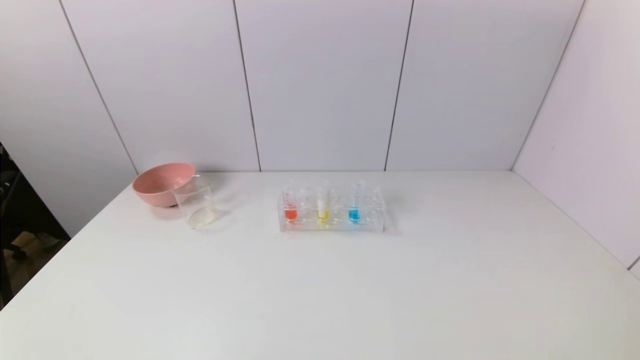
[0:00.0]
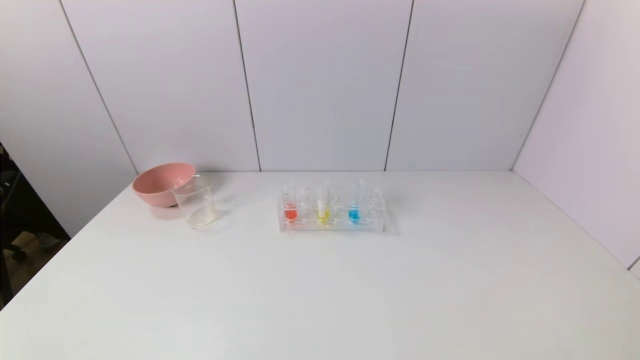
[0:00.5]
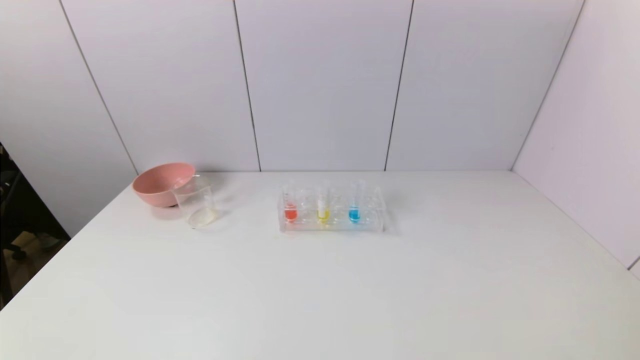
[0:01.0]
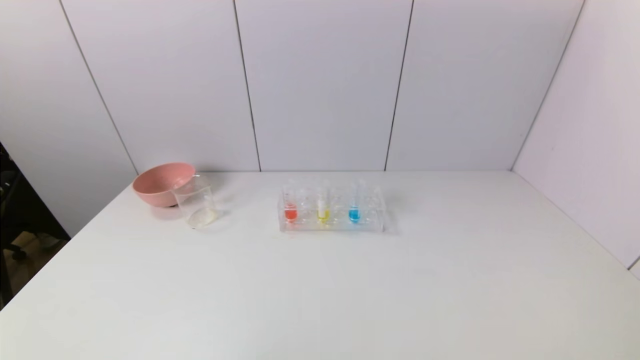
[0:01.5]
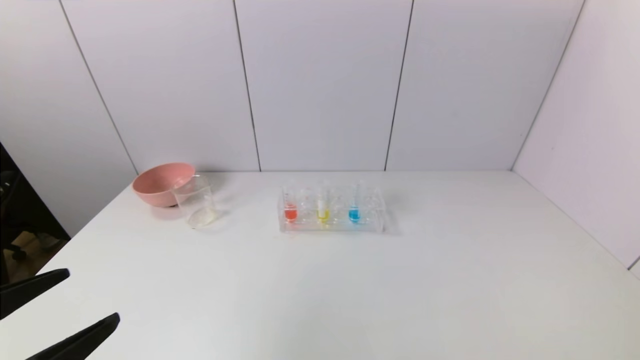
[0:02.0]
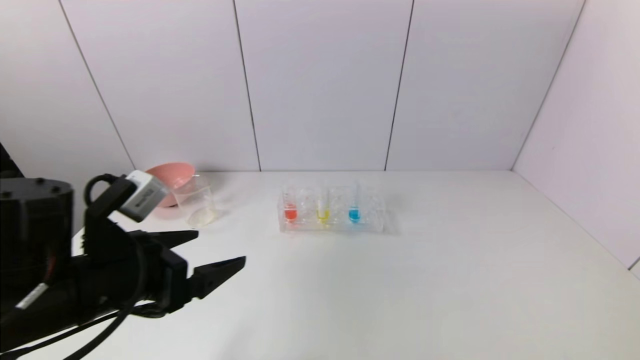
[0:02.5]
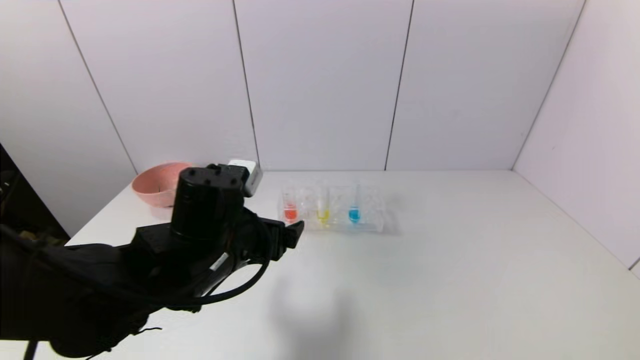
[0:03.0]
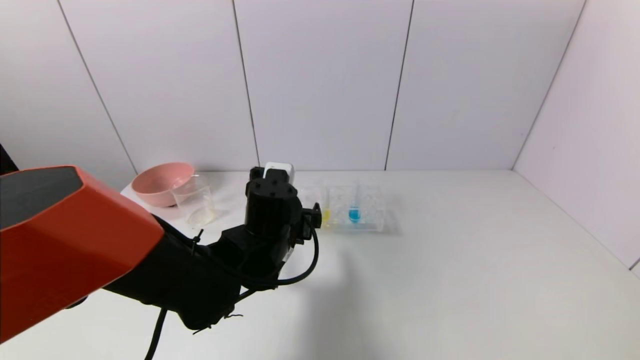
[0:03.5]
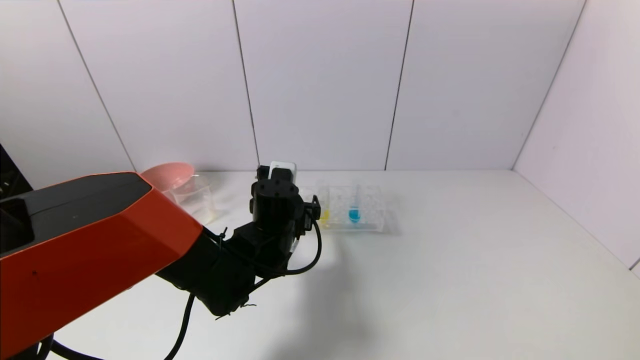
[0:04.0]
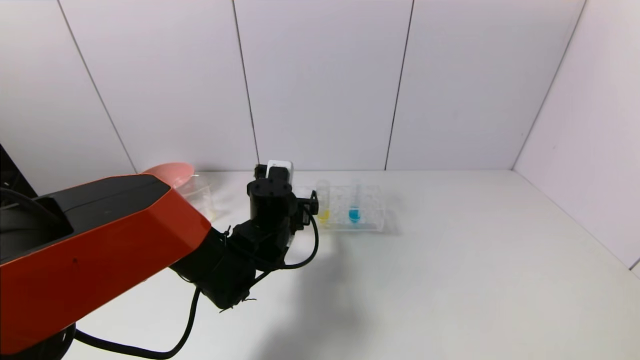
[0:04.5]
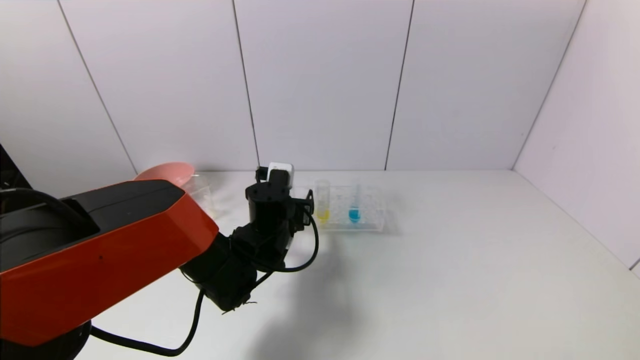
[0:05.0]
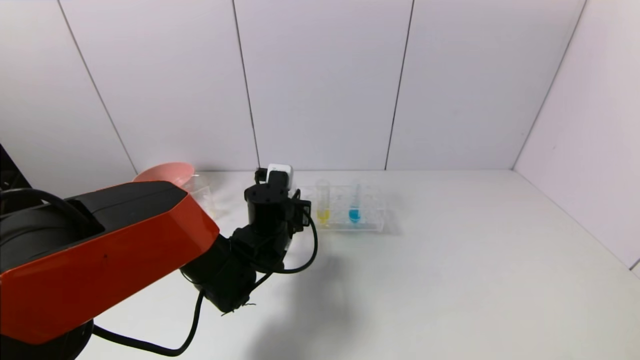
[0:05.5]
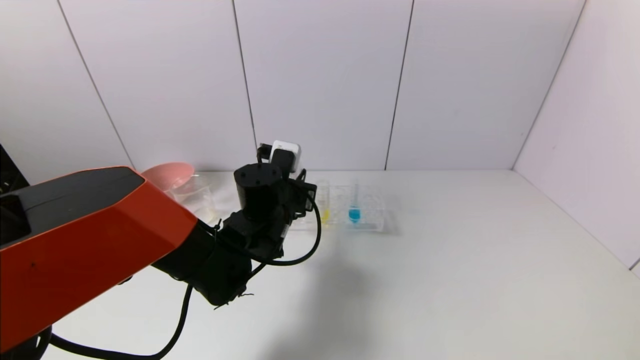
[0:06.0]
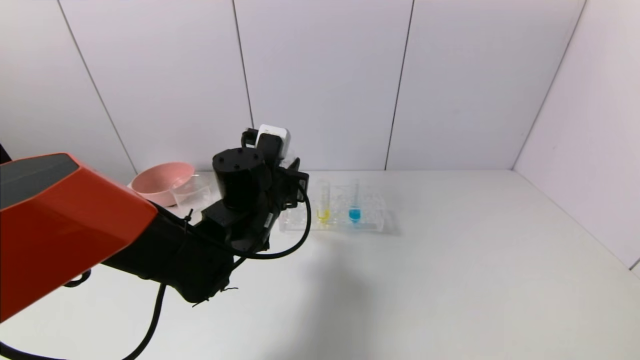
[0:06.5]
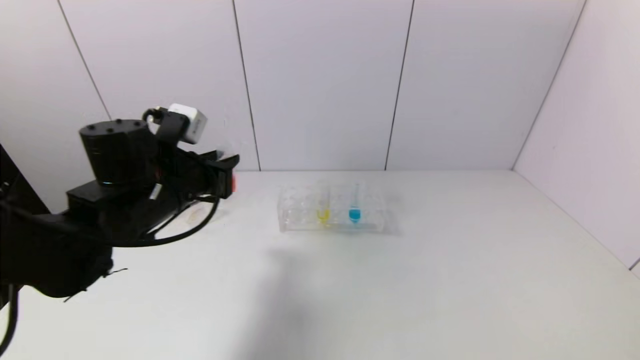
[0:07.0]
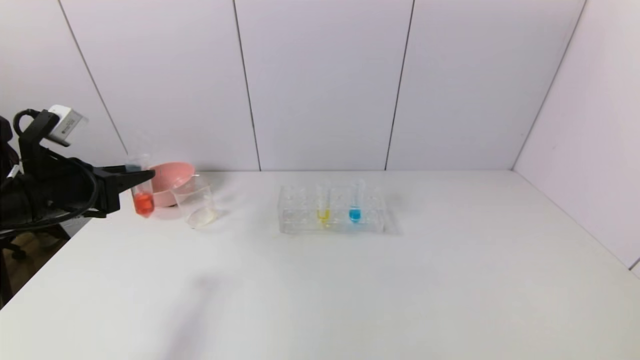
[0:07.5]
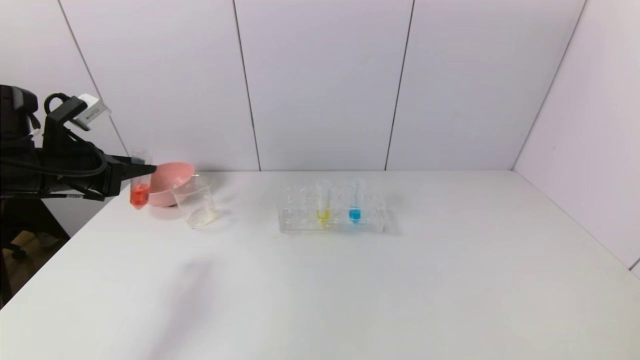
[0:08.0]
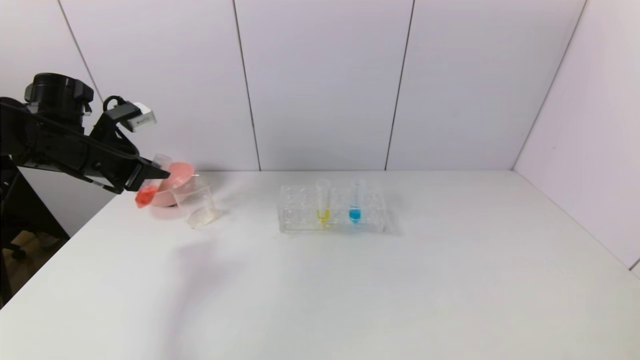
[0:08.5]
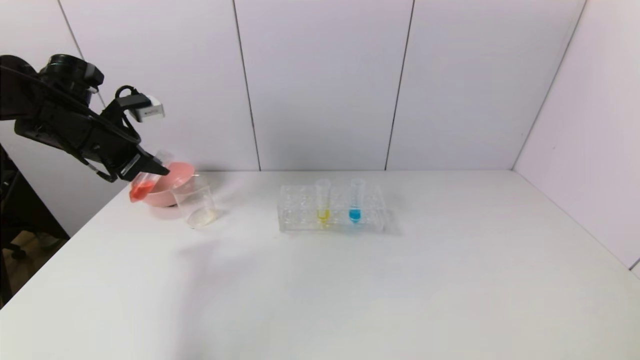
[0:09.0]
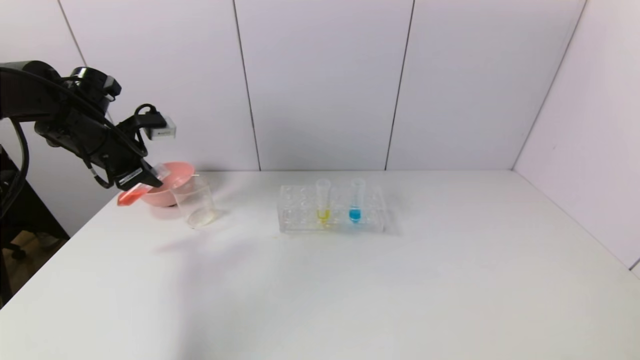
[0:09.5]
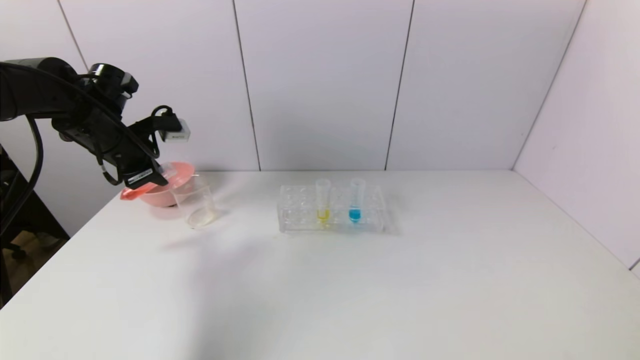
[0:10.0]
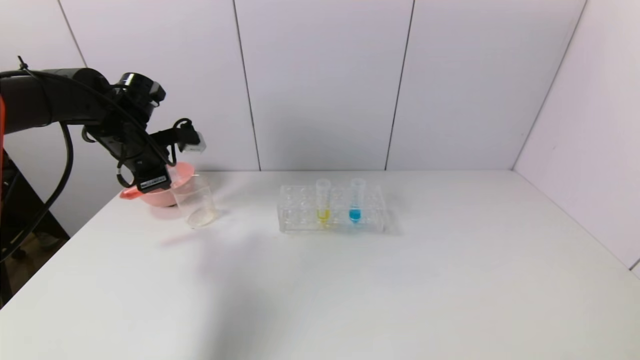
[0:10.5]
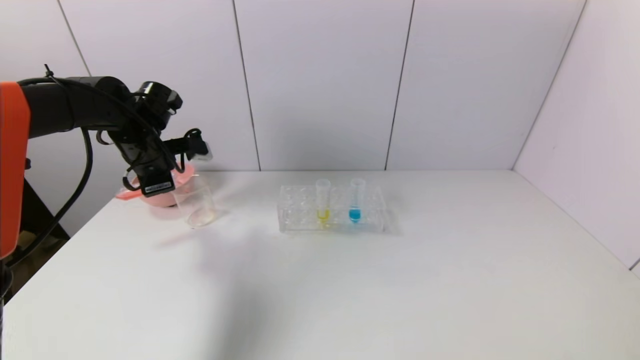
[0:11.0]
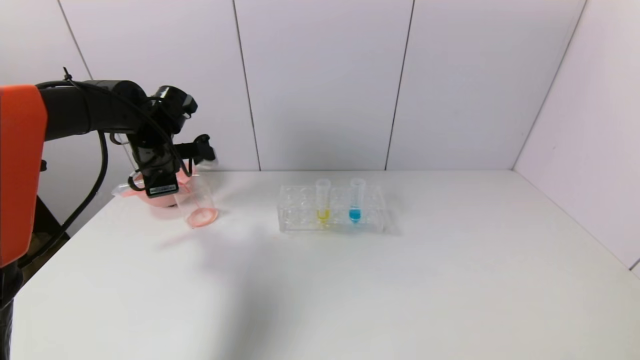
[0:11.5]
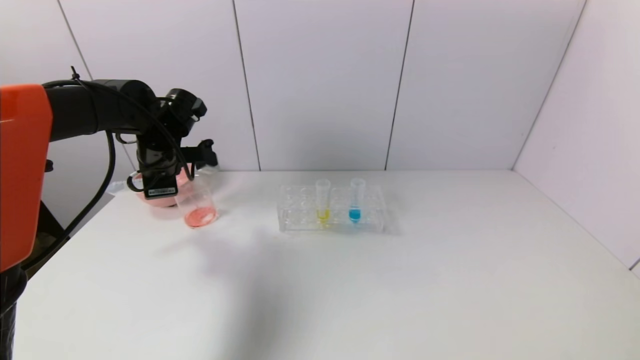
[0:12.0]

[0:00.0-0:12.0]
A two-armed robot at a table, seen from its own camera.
Task of the whole recording: pick up the test tube with yellow pigment and the test tube with red pigment by grippers and pour them into the beaker.
Step, 0:00.0 to 0:05.5: Grasp the red reagent with the left gripper.
0:00.0 to 0:02.0: The left gripper moves upward and forward, some 15 cm.
0:02.0 to 0:04.0: The left gripper travels forward and to the right by approximately 35 cm.
0:04.0 to 0:06.0: The left gripper closes.
0:06.0 to 0:08.0: The left gripper goes about 30 cm to the left.
0:08.0 to 0:10.0: The left gripper goes about 10 cm forward.
0:10.0 to 0:12.0: The left gripper moves to the right, roughly 5 cm.

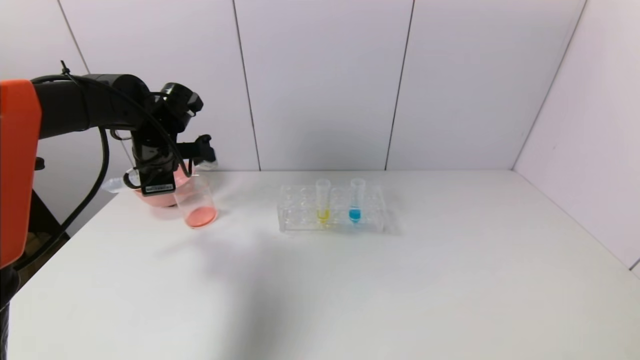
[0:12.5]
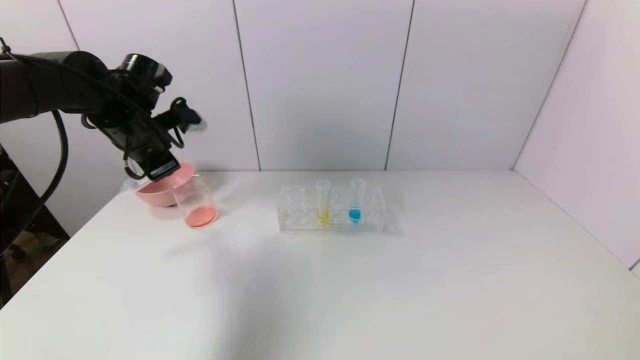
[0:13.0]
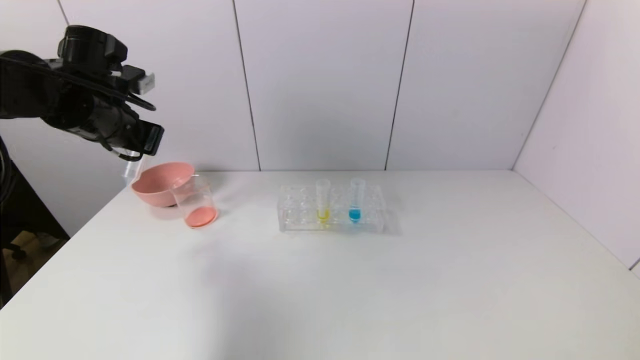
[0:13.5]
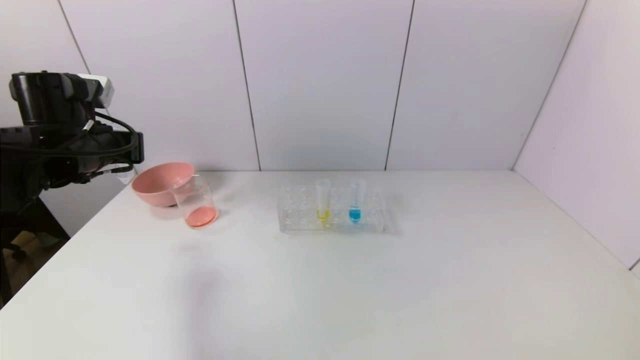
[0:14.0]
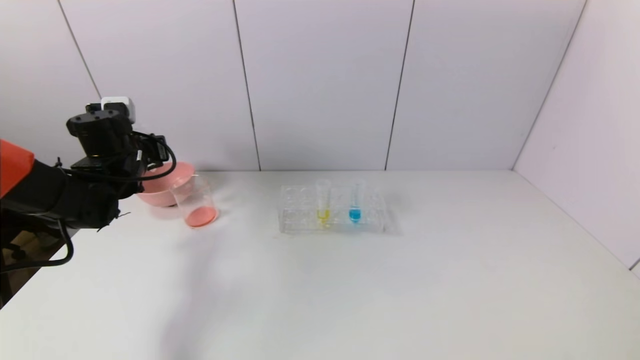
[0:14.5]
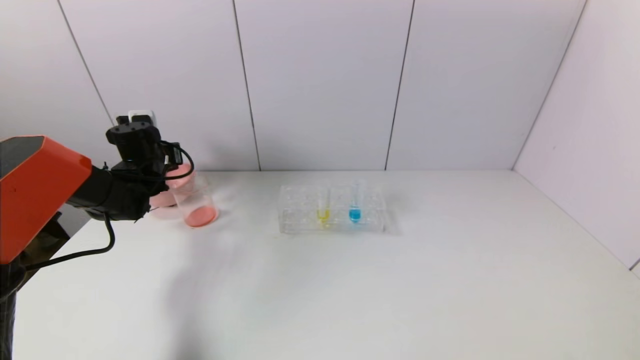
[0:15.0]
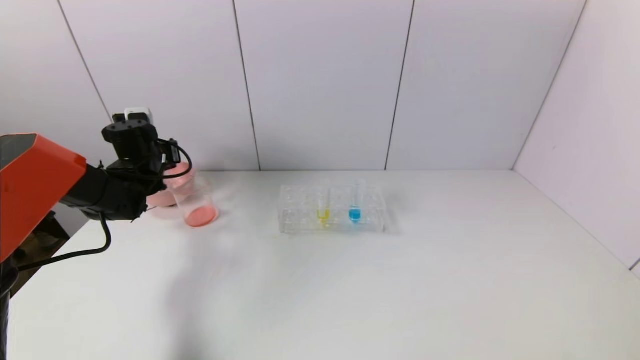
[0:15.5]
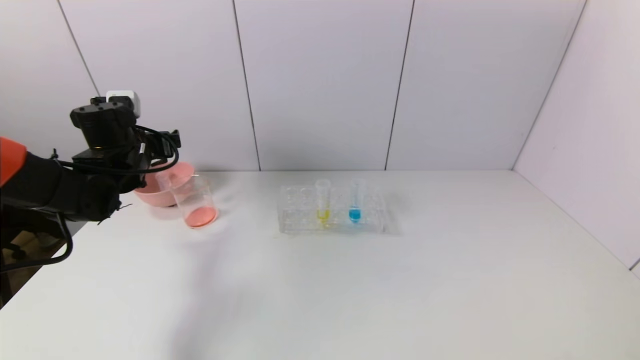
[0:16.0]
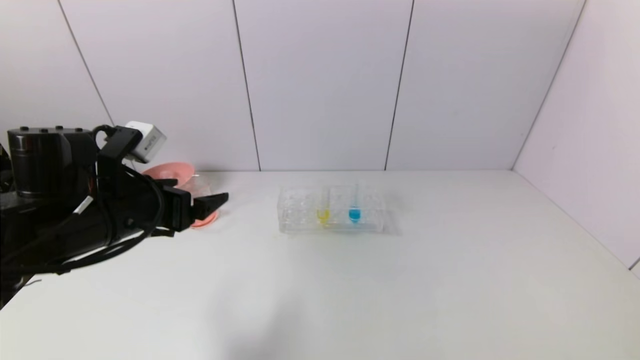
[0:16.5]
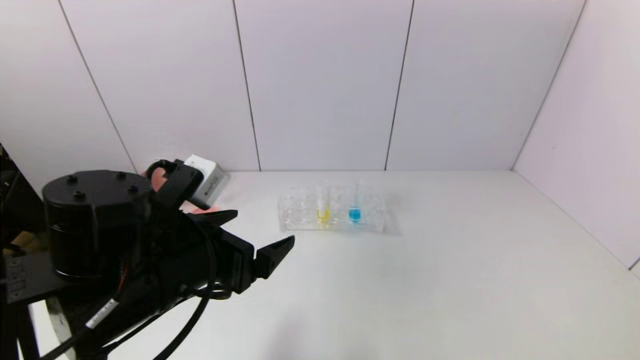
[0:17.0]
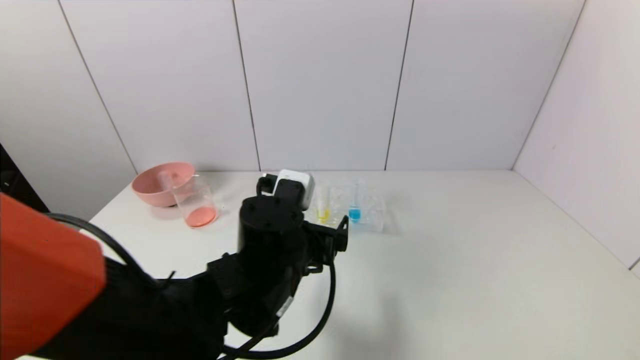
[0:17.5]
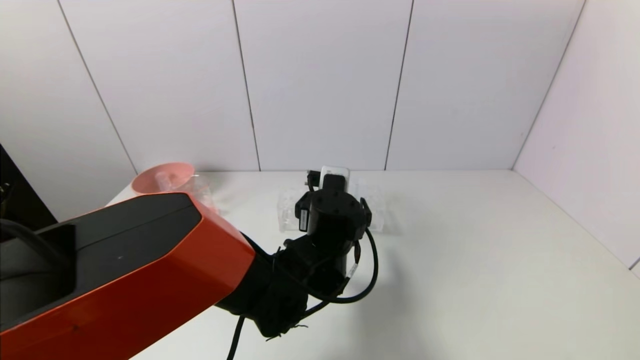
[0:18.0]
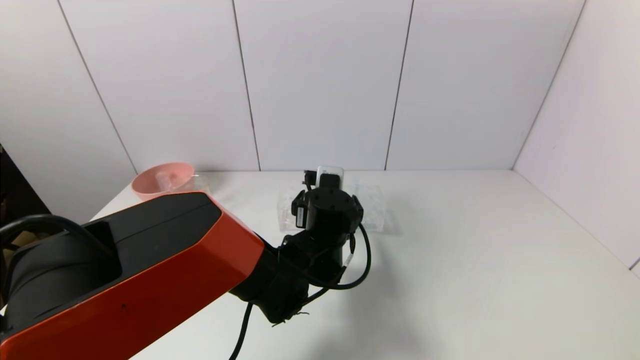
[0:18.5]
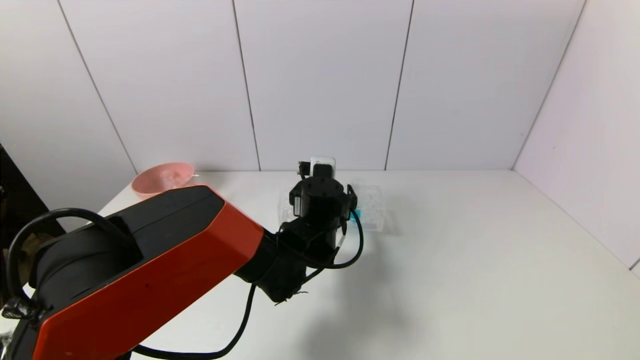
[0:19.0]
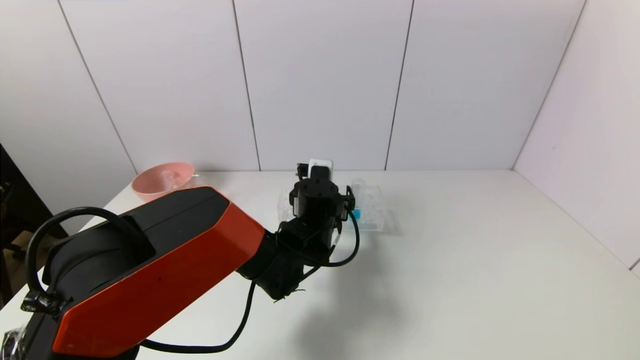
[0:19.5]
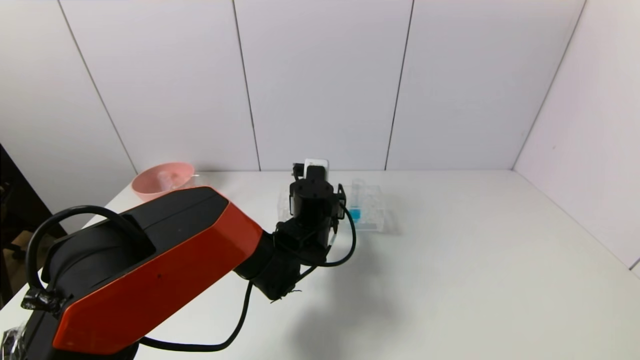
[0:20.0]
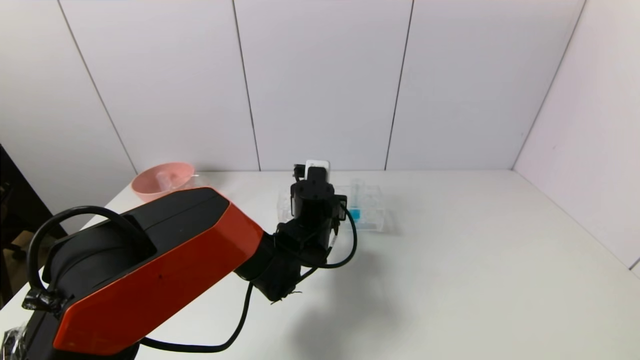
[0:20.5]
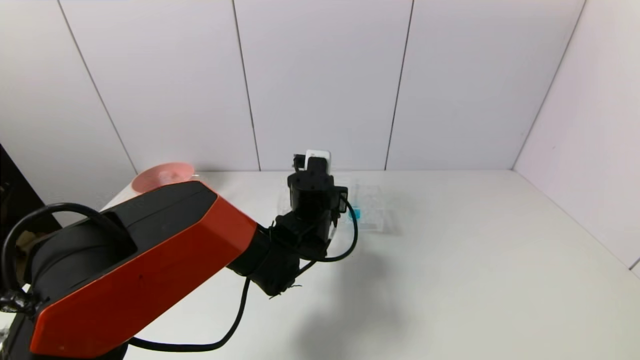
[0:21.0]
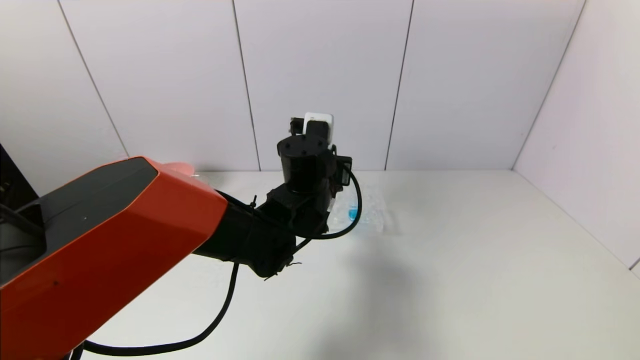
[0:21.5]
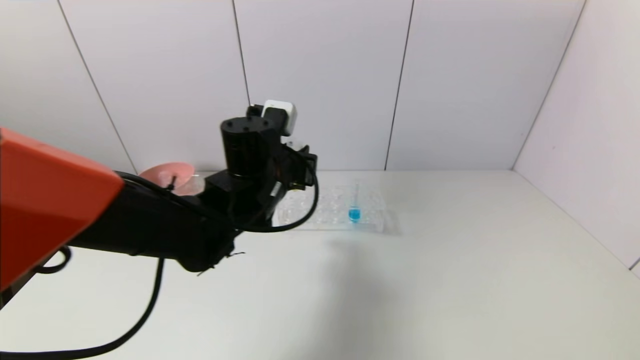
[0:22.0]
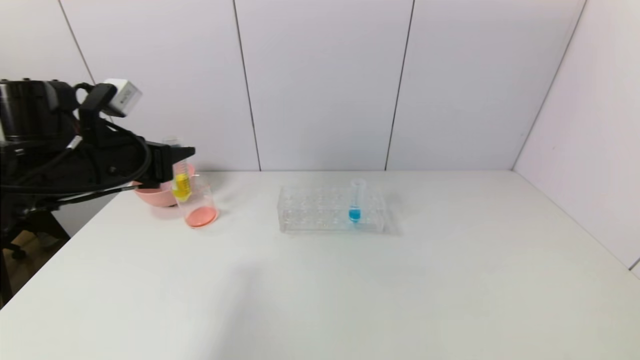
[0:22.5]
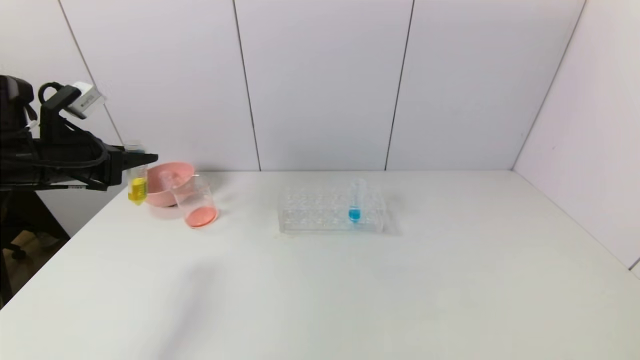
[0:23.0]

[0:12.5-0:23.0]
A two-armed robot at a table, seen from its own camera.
Task of the whole recording: pick up the test tube with yellow pigment and the test tube with red pigment by grippers and pour them into the beaker.
Step, 0:12.5 to 0:15.5: Place the test tube into the pink bowl with the left gripper.
Step, 0:16.0 to 0:20.5: Grasp the yellow reagent with the left gripper.
0:12.5 to 0:14.5: The left gripper is displaced to the left by approximately 5 cm.
0:14.5 to 0:16.5: The left gripper shifts some 20 cm backward and to the right, and opens its fingers.
0:16.5 to 0:19.0: The left gripper moves to the right, forward and downward, about 30 cm.
0:19.0 to 0:21.0: The left gripper closes its fingers.
0:21.0 to 0:23.0: The left gripper travels to the left by about 35 cm.
